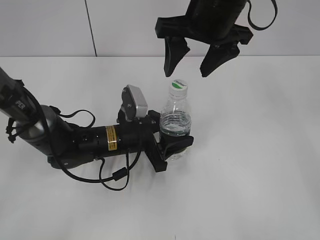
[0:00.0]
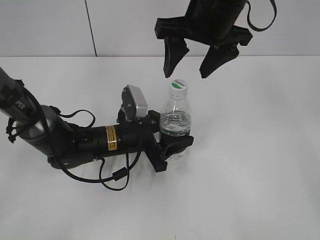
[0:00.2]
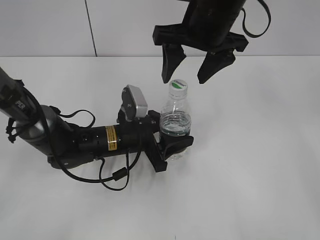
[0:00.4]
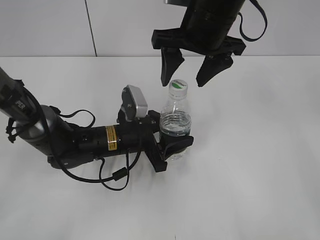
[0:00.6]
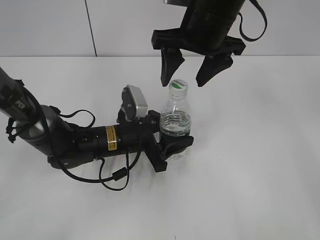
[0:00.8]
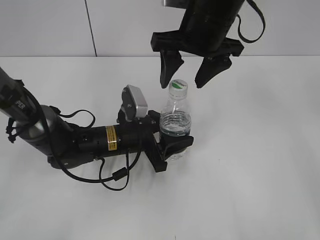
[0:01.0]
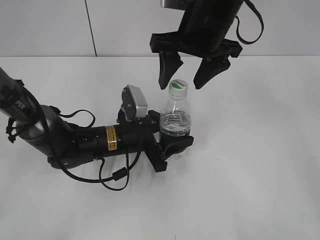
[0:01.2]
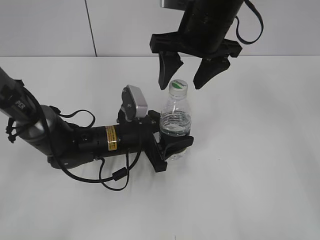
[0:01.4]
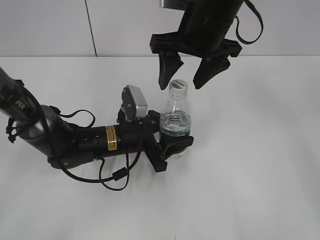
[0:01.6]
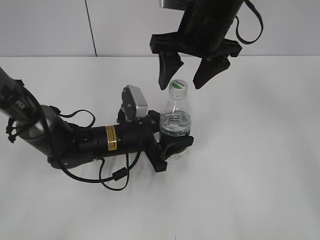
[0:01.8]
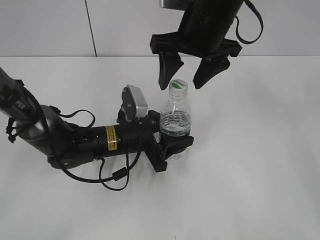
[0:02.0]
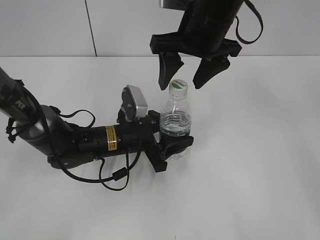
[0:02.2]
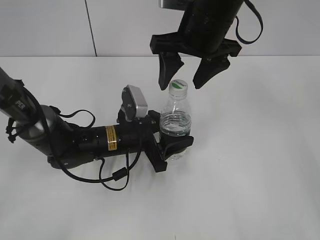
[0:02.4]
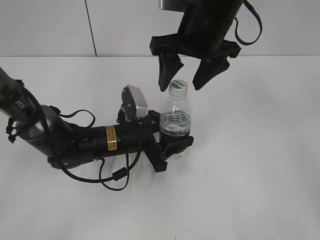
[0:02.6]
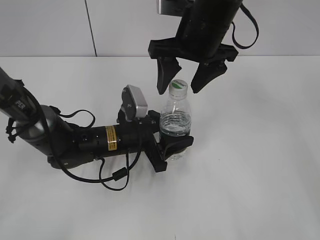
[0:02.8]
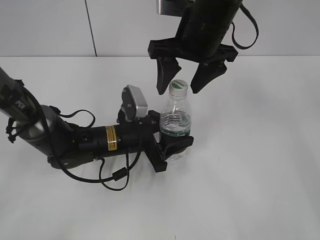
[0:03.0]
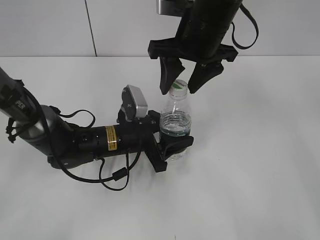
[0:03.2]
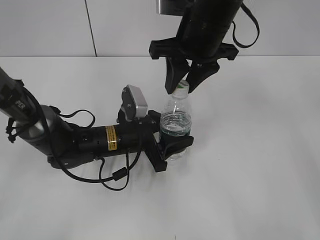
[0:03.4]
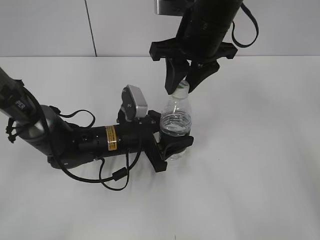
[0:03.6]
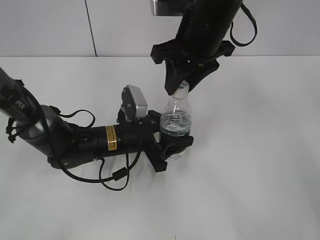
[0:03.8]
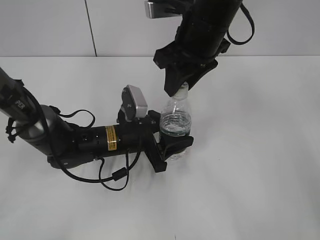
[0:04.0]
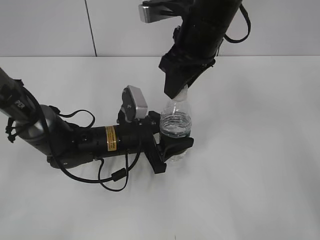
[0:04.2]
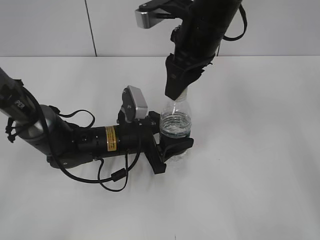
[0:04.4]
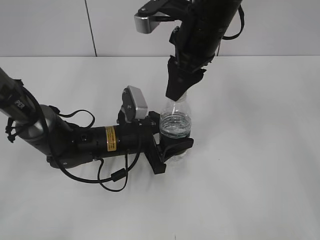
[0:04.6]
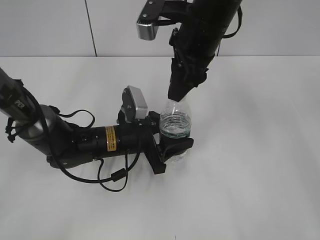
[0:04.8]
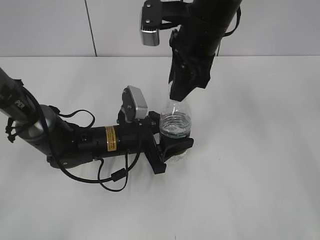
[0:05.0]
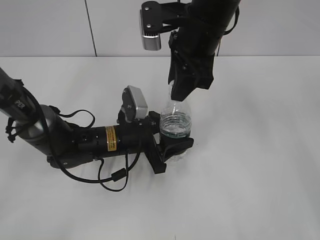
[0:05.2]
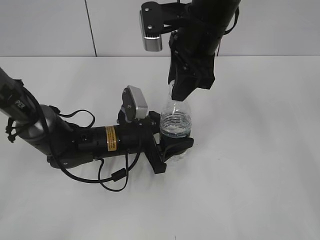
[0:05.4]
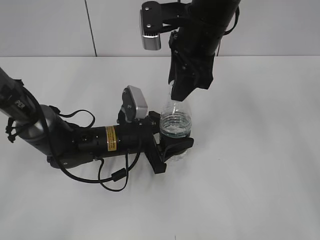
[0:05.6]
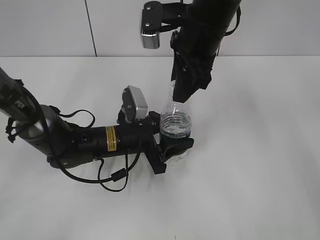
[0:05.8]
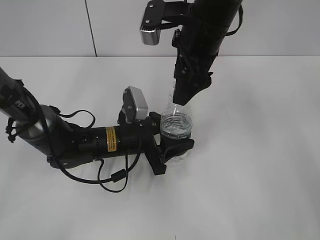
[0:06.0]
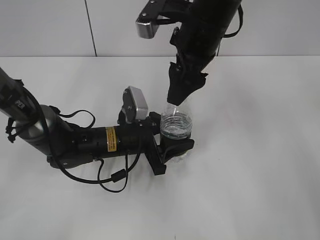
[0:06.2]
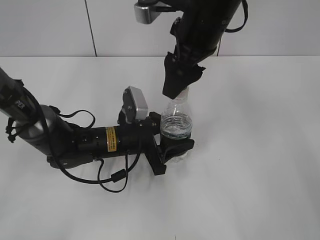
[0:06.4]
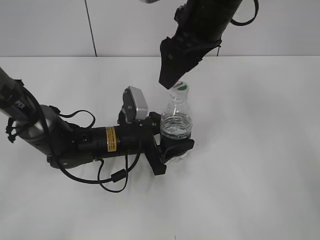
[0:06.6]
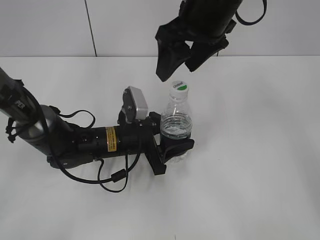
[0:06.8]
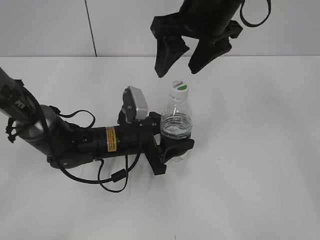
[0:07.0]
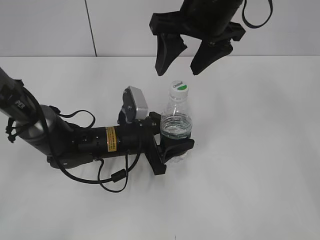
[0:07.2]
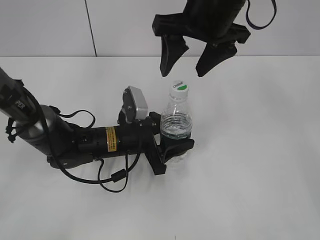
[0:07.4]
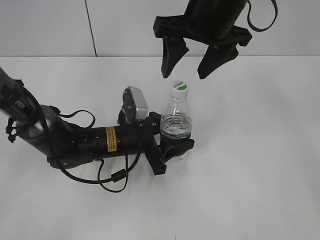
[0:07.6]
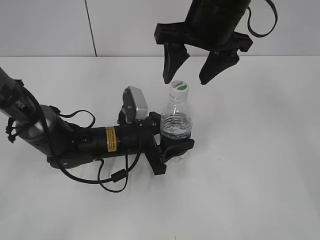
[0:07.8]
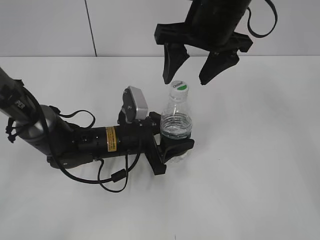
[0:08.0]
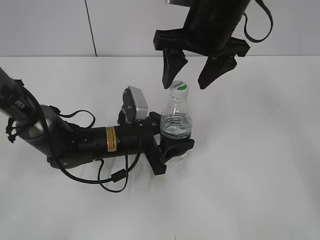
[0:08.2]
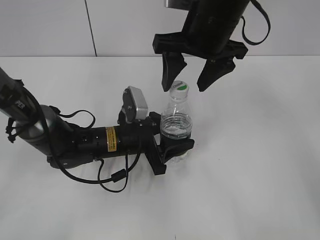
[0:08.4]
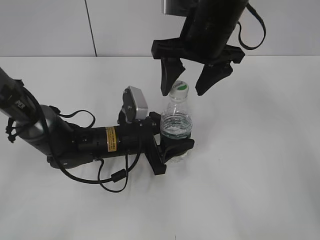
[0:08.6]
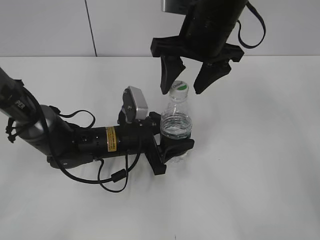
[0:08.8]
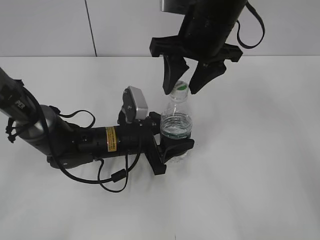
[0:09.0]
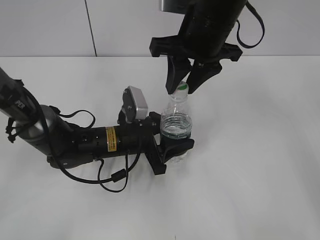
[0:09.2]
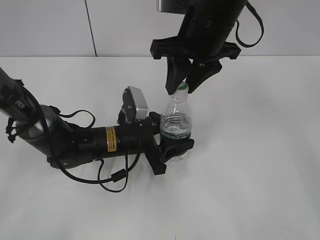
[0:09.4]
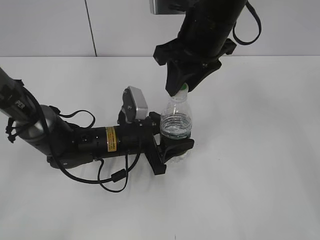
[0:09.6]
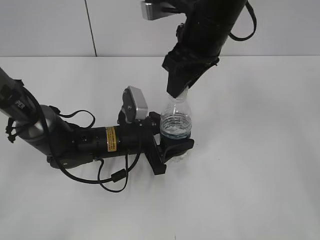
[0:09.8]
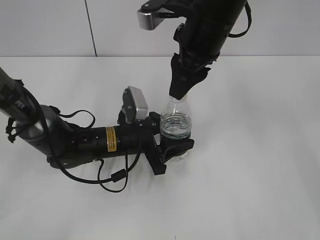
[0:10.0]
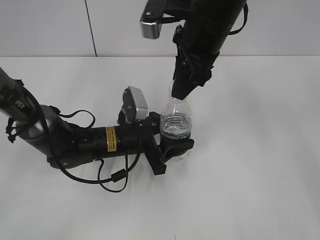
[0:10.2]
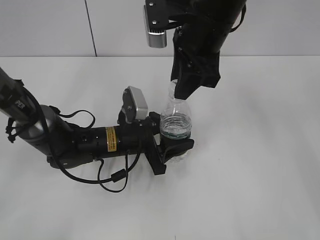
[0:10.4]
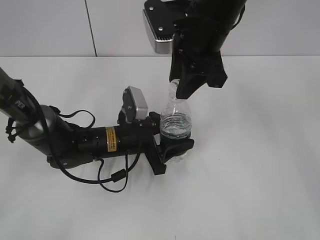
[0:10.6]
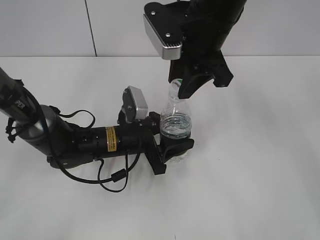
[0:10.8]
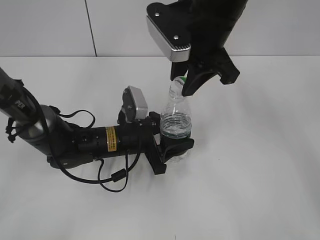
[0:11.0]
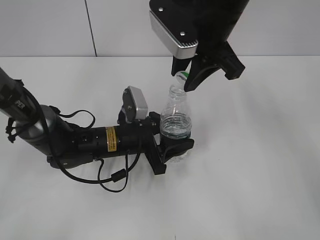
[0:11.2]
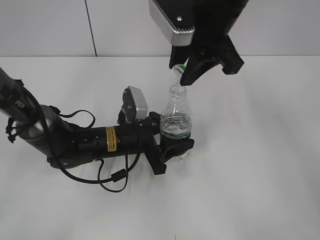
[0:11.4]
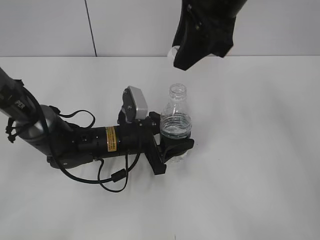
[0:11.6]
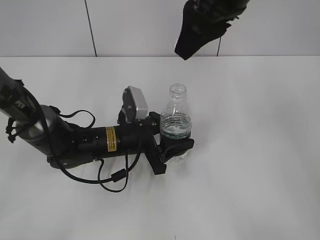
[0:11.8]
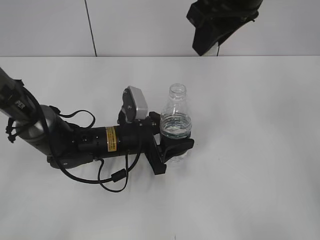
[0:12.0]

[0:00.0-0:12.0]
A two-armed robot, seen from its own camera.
Step, 0:00.0 to 0:11.4: Unscrew the bottle cap with the right gripper while holding the bottle with the left gripper.
0:00.0 to 0:01.6: The grippers move only a little.
0:01.6 to 0:03.0: Both grippers stay about where they are.
0:03.0 to 0:04.4: The right gripper closes up.
0:04.4 to 0:06.0: The right gripper opens.
0:07.6 to 0:09.0: The right gripper closes its fingers.
0:09.0 to 0:10.4: The right gripper closes its fingers.
0:10.4 to 0:12.0: The right gripper goes roughly 5 cm upward.

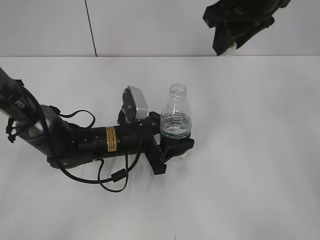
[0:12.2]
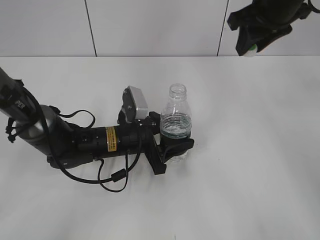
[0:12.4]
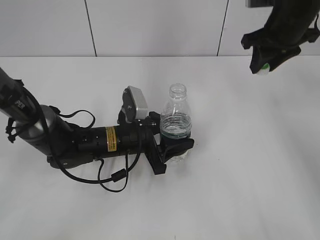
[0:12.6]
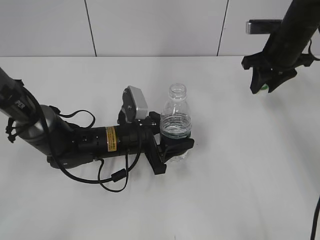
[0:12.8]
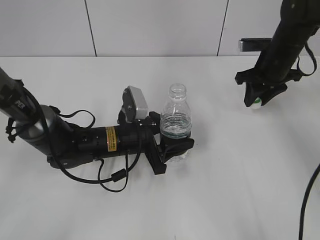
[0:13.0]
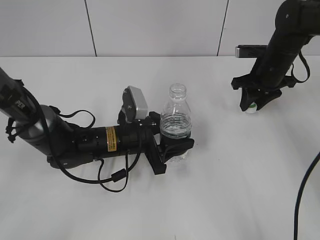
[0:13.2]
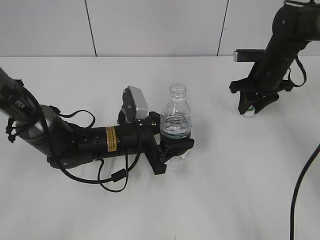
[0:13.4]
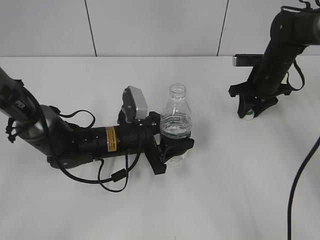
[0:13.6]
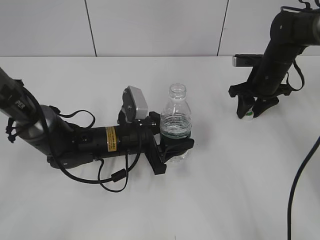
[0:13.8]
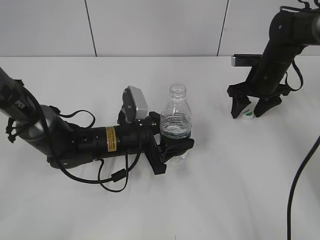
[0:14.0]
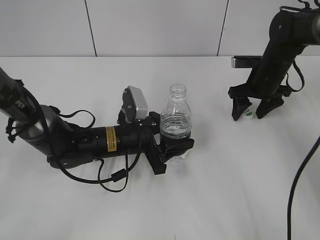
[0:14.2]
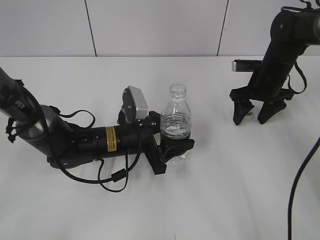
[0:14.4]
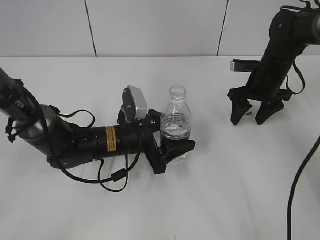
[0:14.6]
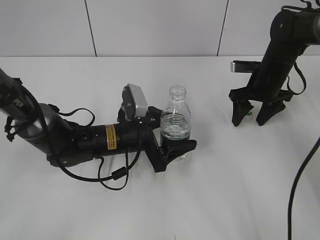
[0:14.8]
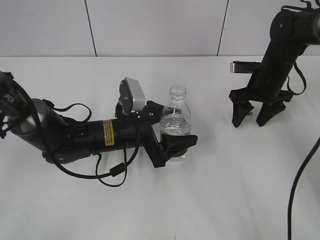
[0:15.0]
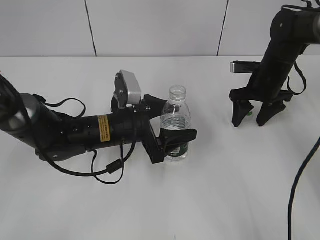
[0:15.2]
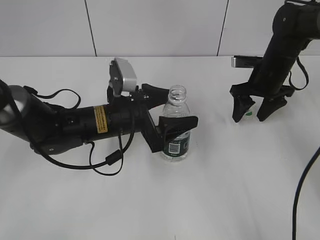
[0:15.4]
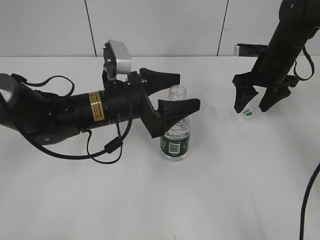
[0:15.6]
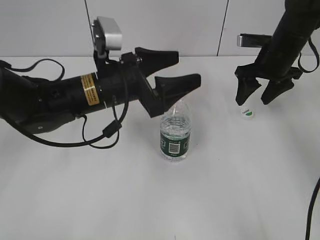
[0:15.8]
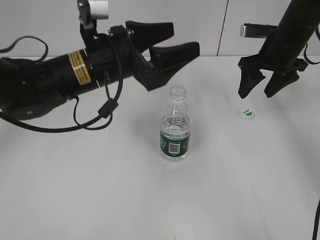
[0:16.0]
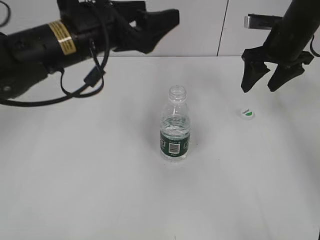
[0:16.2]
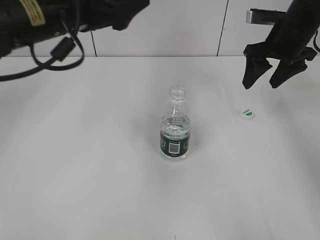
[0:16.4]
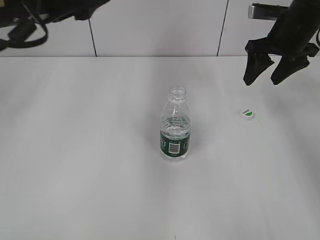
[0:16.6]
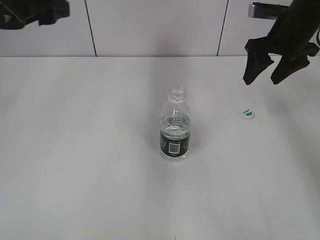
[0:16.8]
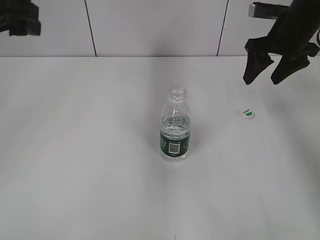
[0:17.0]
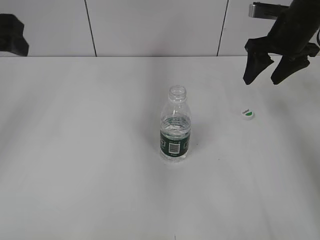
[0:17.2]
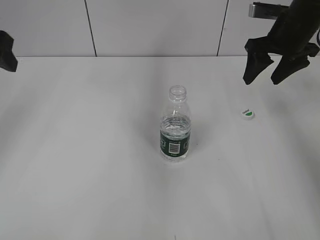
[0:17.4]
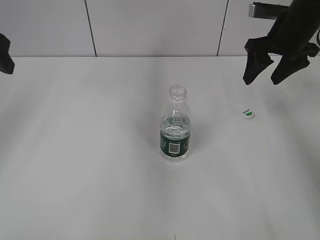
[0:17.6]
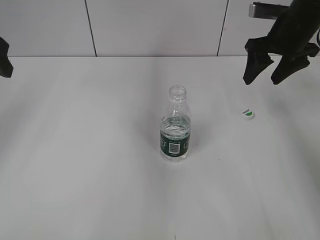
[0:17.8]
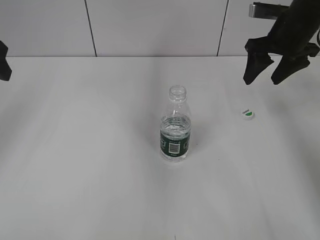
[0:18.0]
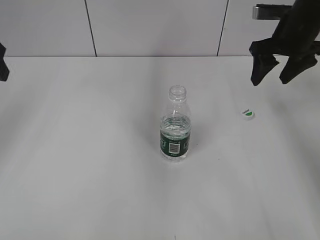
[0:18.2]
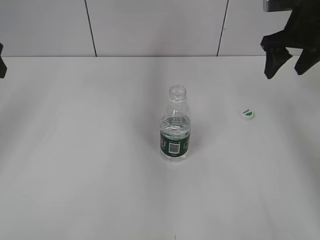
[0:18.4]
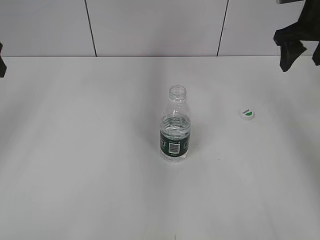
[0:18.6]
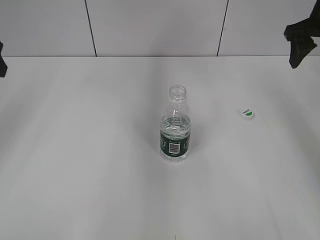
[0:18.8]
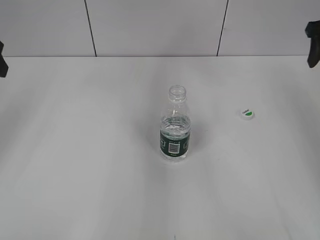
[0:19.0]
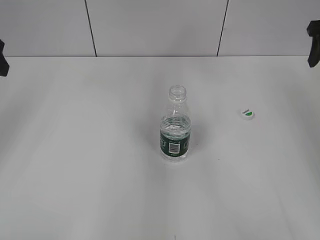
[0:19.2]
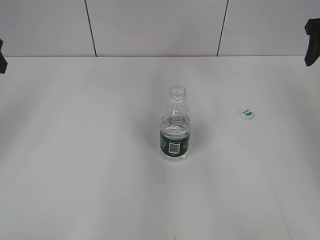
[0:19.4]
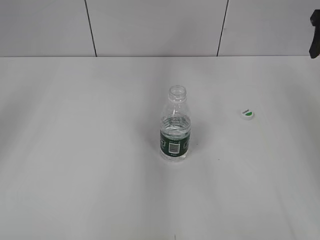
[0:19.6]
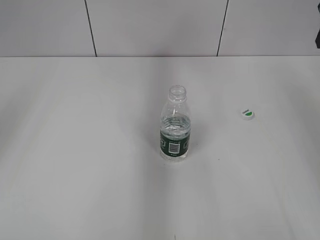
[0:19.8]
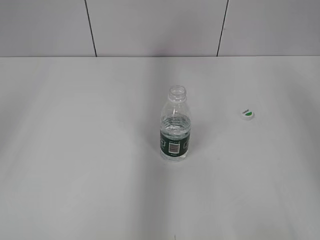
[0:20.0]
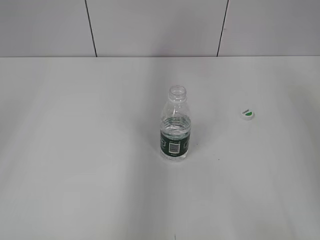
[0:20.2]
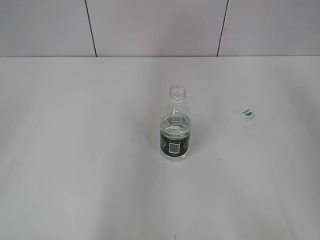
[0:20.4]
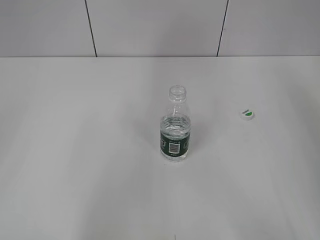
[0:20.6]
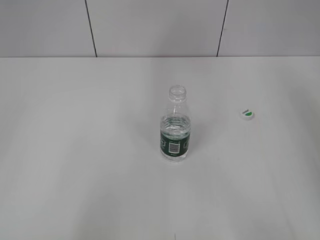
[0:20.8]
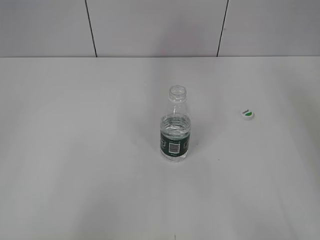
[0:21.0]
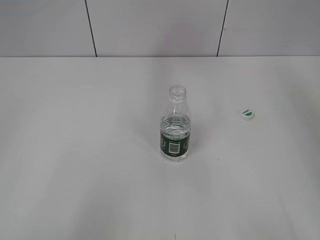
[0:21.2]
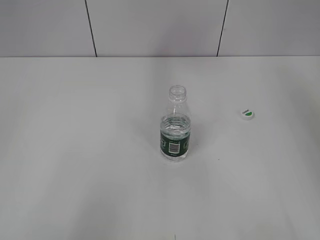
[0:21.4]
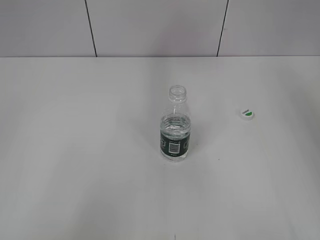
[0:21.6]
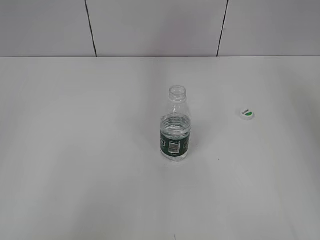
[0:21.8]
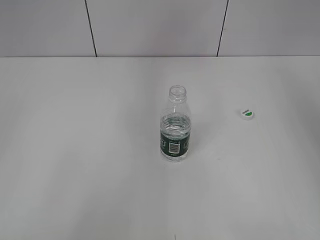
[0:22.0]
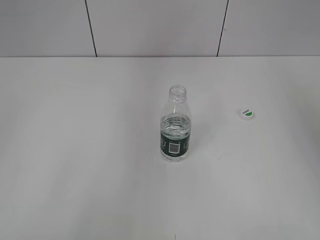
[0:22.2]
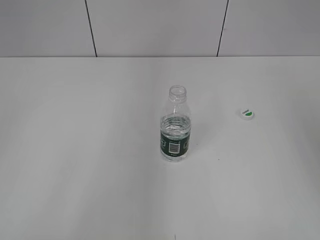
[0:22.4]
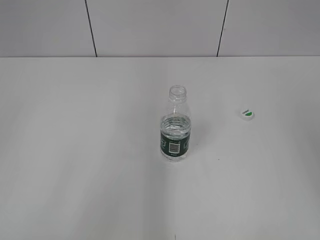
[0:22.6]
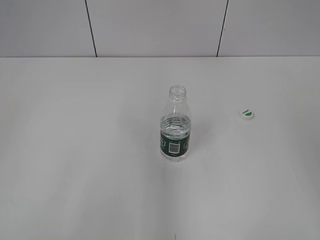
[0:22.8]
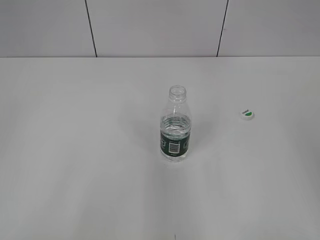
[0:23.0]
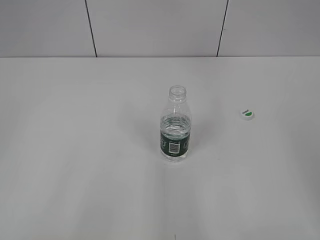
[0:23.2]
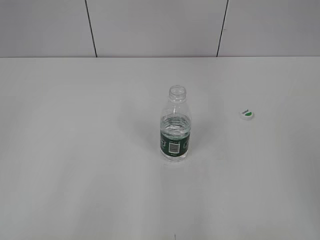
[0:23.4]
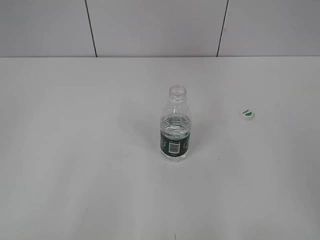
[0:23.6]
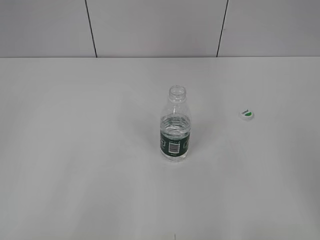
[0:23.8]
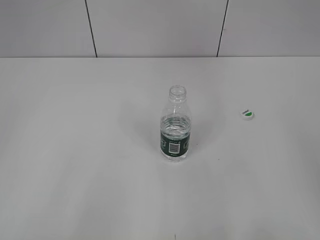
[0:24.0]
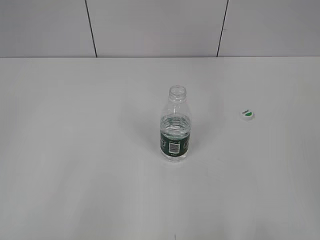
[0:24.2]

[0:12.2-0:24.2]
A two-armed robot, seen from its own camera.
Step, 0:12.2 to 0:14.8: Place the bottle cap on the table with the right gripper.
Step, 0:15.0 to 0:15.2: Place the bottle on the table with the left gripper.
0:12.2 to 0:13.8: The right gripper shifts approximately 25 cm downward, to the right and forward.
0:13.8 to 0:15.2: The right gripper opens. The left gripper opens.
0:15.2 to 0:16.6: The right gripper goes about 10 cm upward. Meanwhile the left gripper shifts about 25 cm upward and to the left.
0:16.6 to 0:18.2: The left gripper heads to the left, covering roughly 15 cm.
0:18.2 to 0:19.8: The right gripper travels upward and to the right by roughly 10 cm.
0:19.8 to 0:21.2: The left gripper moves backward, about 25 cm.
0:22.6 to 0:24.2: The right gripper shifts approximately 20 cm backward and downward.
